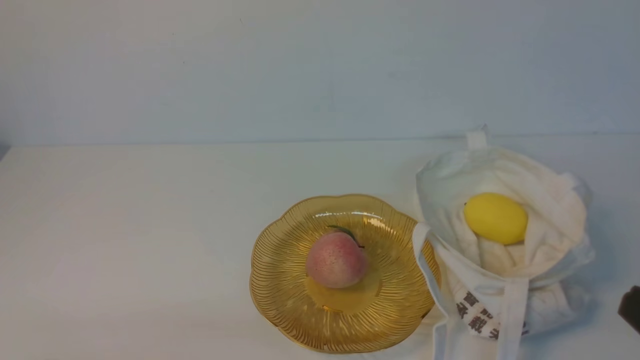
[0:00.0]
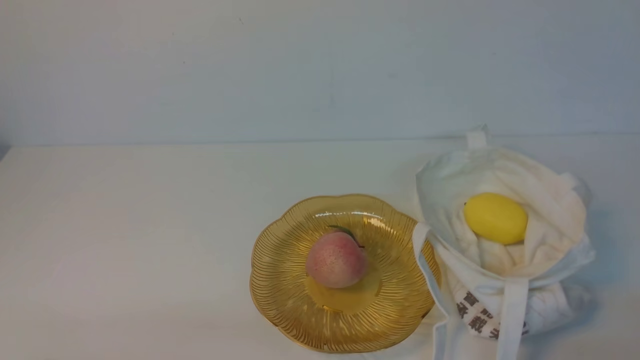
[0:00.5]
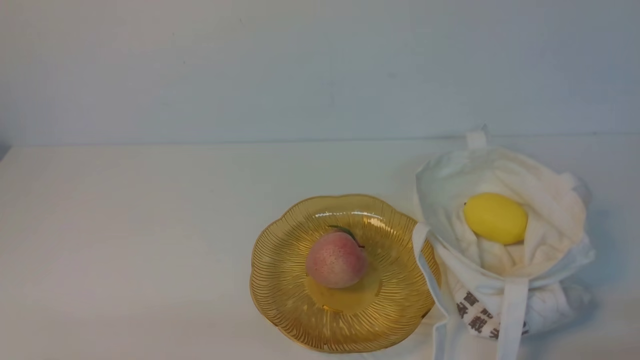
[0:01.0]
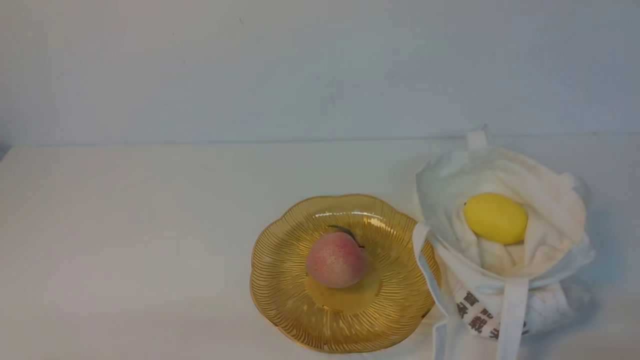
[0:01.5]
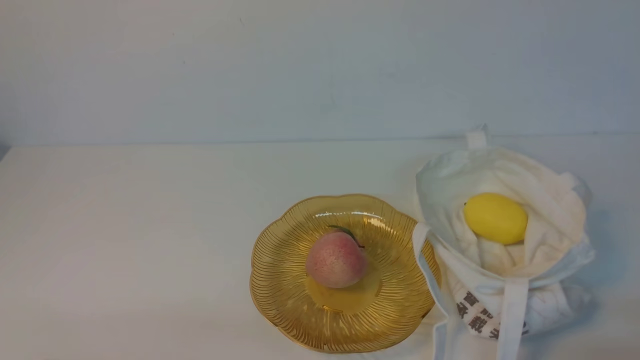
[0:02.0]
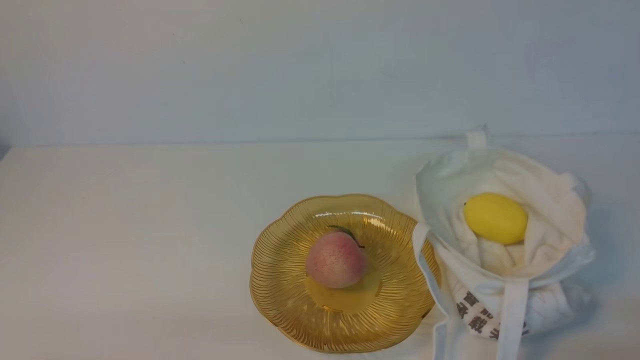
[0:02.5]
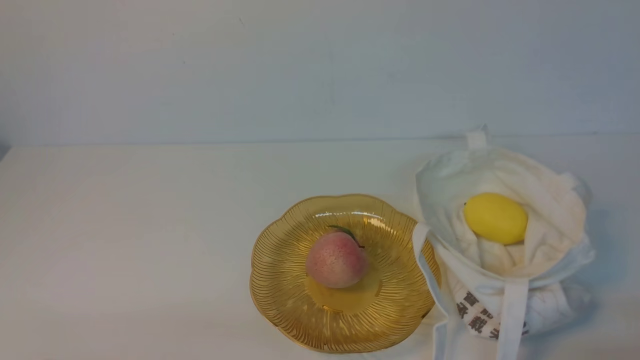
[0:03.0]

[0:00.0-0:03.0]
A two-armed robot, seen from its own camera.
0:01.5 to 0:03.0: Neither gripper changes place.
